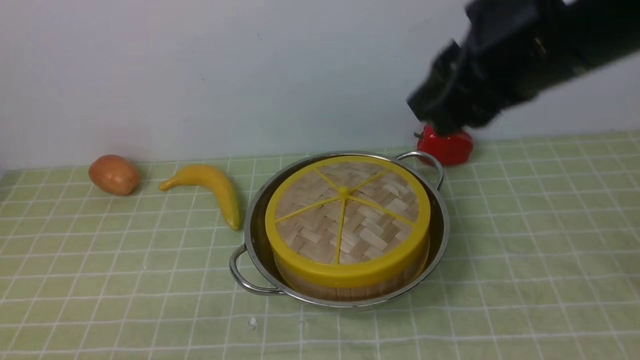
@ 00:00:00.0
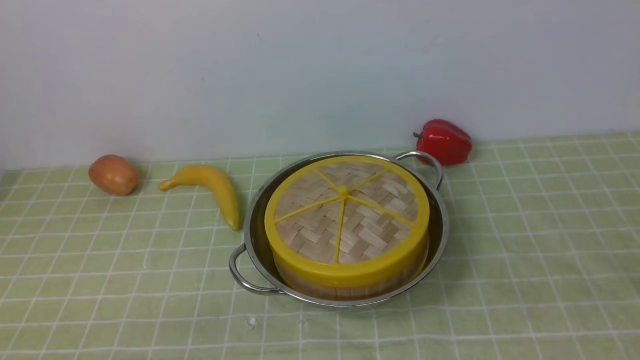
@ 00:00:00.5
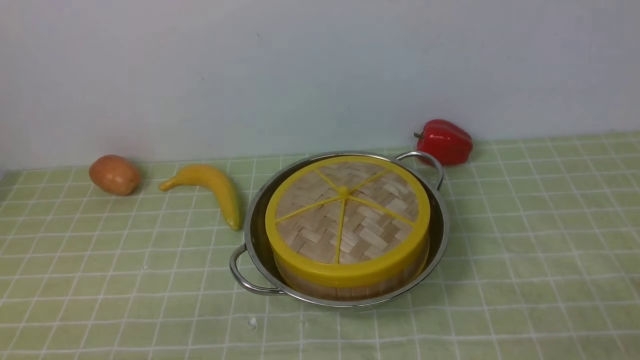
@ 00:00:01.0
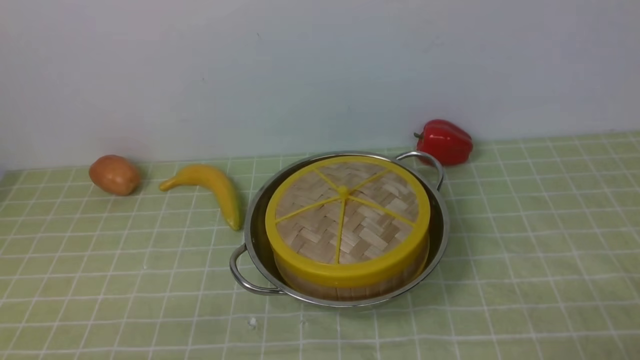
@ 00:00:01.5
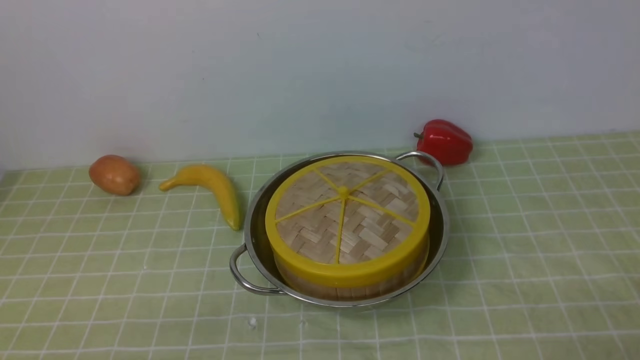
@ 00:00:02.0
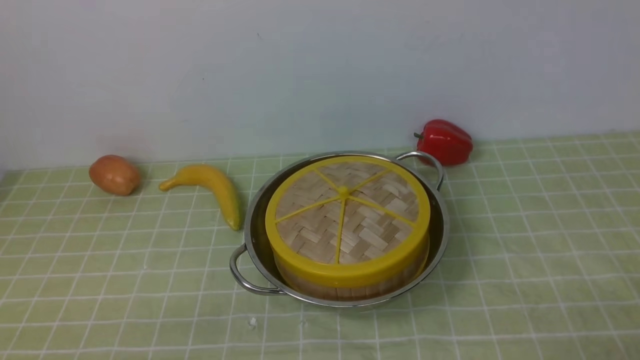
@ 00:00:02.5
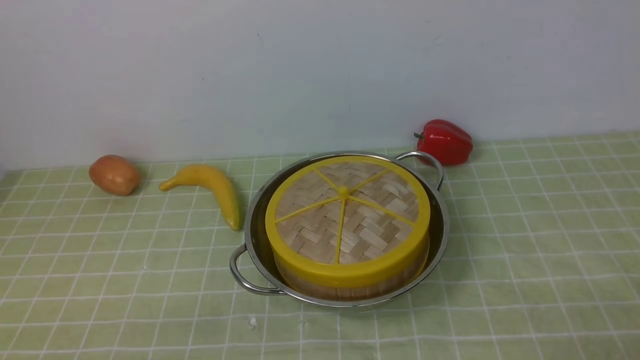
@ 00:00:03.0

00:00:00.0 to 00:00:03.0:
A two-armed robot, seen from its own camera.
Task of the whole recording: place the steamer in the pot on the green tablecloth, and put the lid on the steamer.
00:00:00.0 to 00:00:01.5: The right gripper travels downward, backward and to the right by about 35 cm.
00:00:01.5 to 00:00:03.0: Neither gripper changes place.
